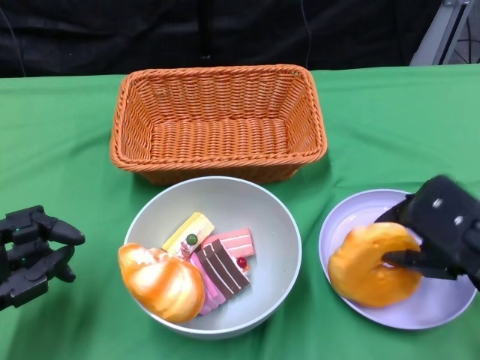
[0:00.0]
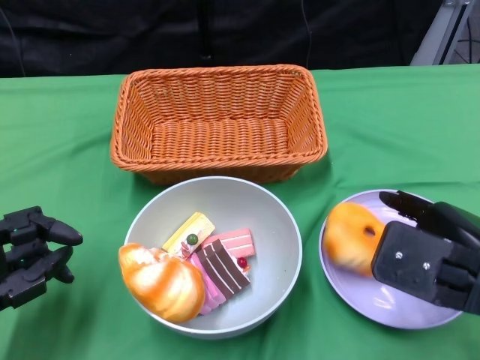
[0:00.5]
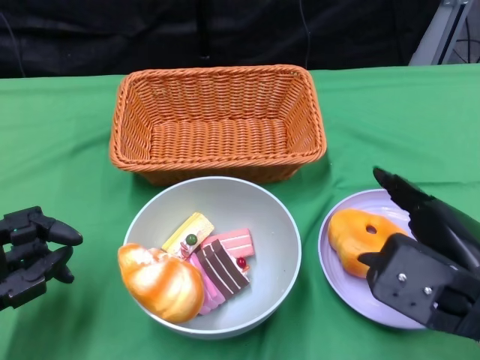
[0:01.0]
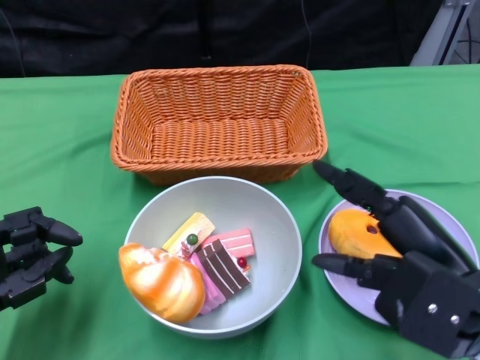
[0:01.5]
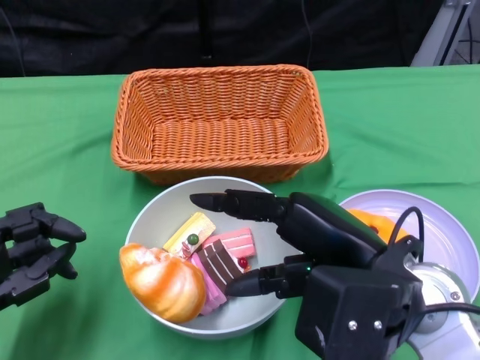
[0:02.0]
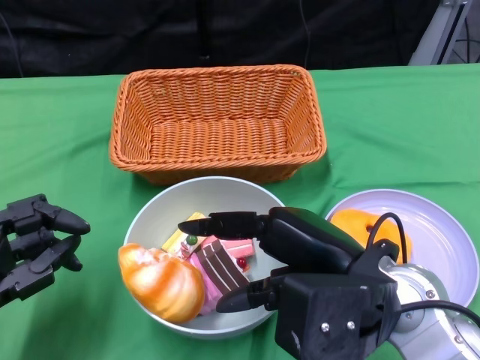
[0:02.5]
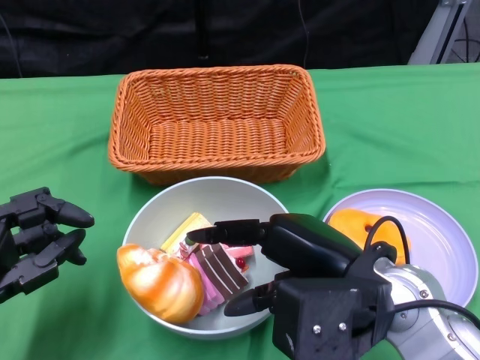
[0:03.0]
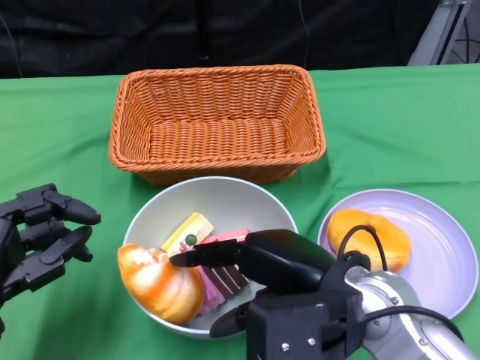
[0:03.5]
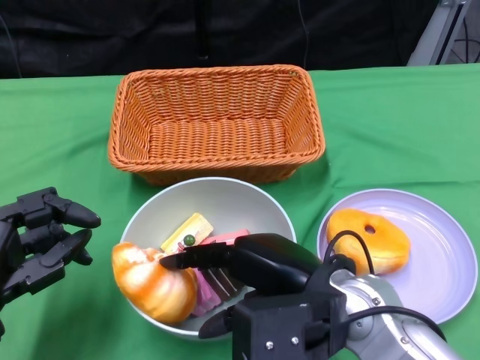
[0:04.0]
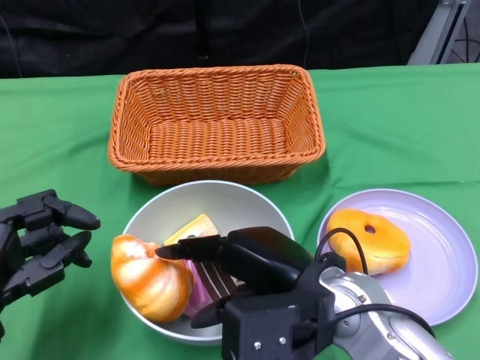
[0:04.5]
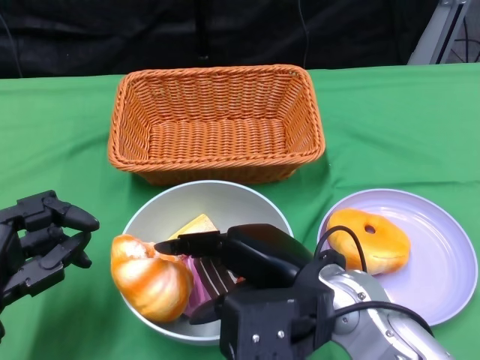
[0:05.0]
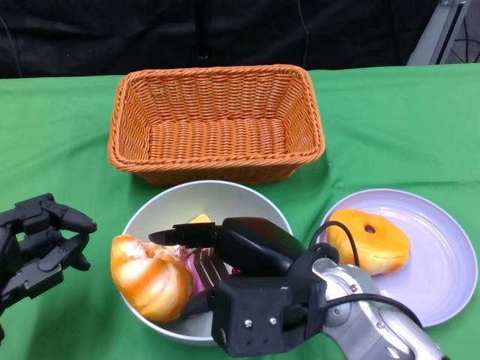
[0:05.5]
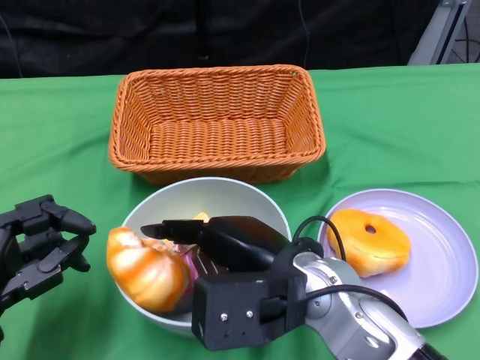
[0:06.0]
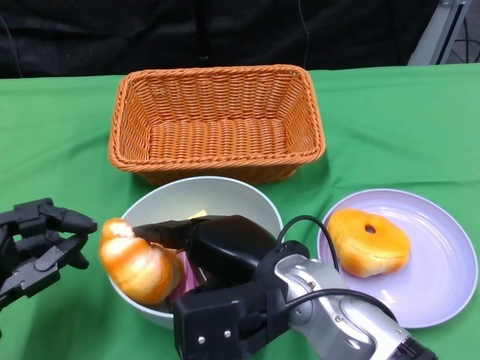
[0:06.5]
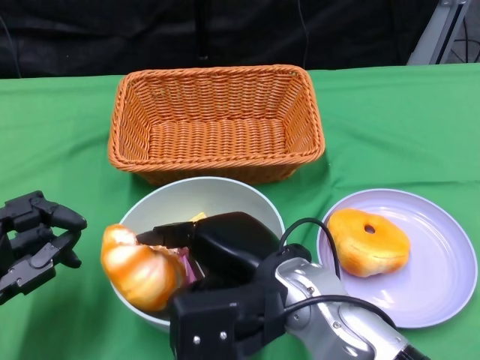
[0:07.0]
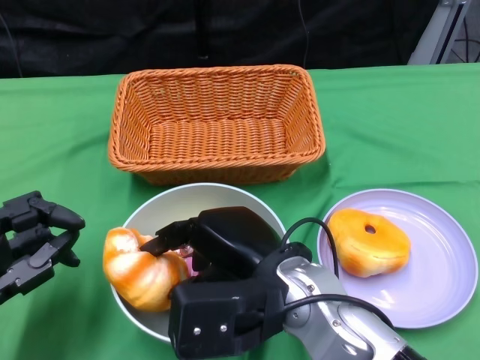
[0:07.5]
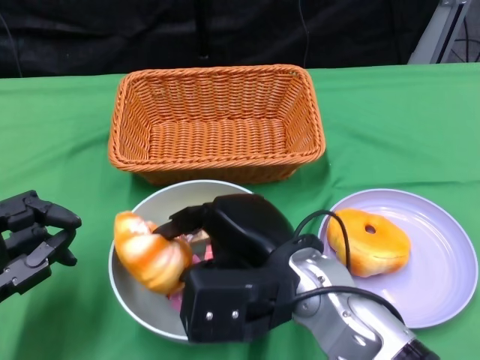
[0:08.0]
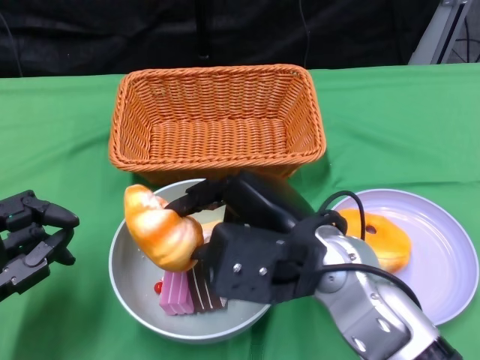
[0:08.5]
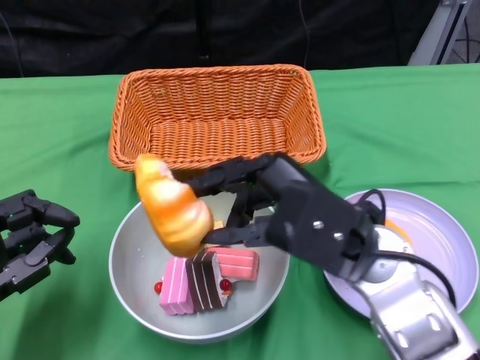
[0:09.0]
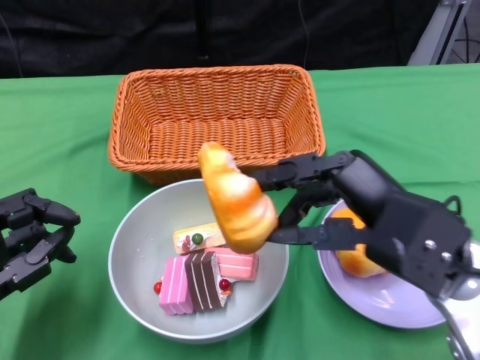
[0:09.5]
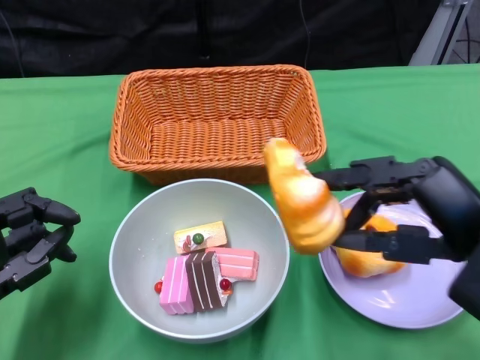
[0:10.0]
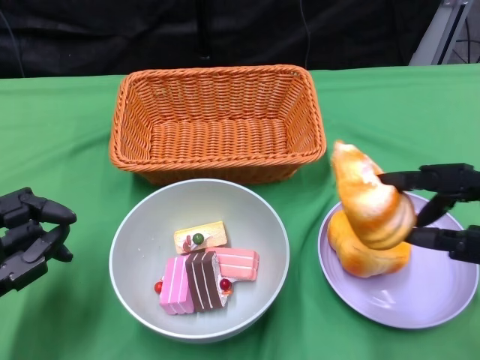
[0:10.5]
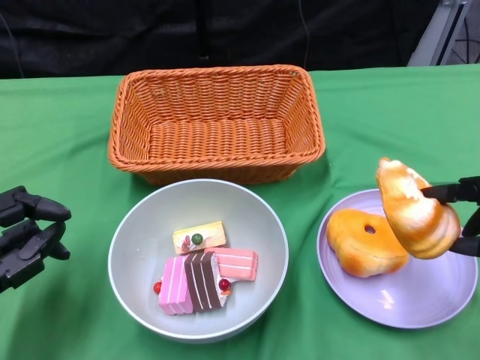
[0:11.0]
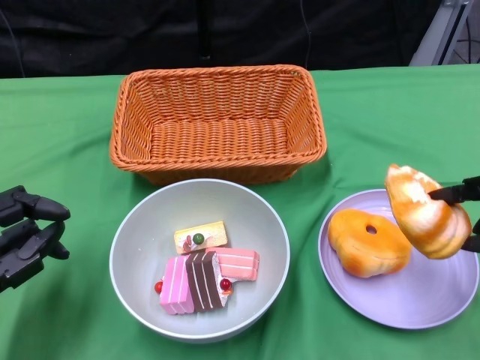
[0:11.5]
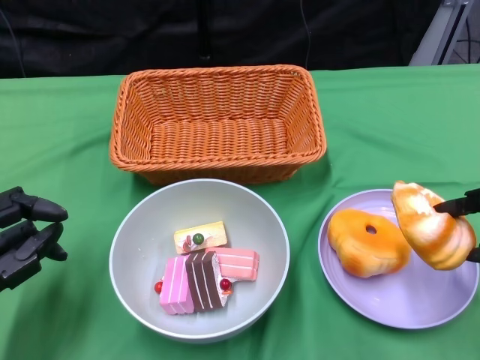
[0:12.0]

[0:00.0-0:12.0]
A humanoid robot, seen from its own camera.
0:00.0 to 0:02.0: The right hand moves to the left, approximately 10 cm.
0:02.0 to 0:04.0: The right hand moves approximately 5 cm.
0:04.0 to 0:08.0: The hands make only small movements.
0:08.0 to 0:10.0: The right hand goes some 15 cm to the right.
0:10.0 to 0:12.0: The right hand travels to the right by about 10 cm.

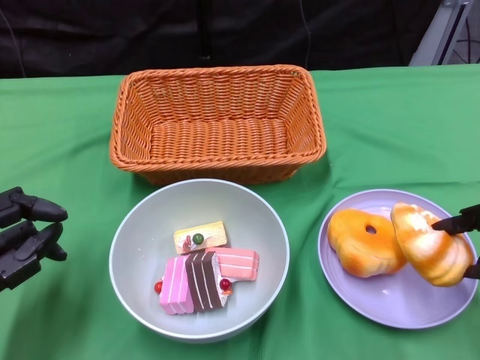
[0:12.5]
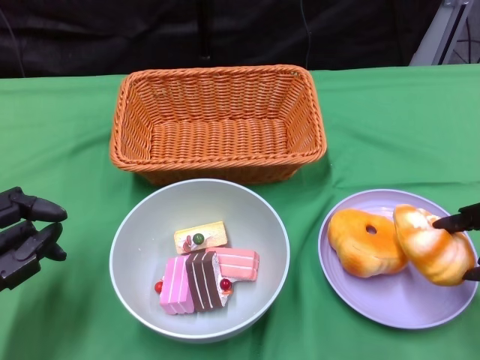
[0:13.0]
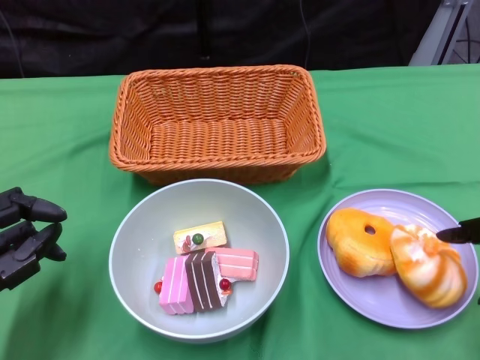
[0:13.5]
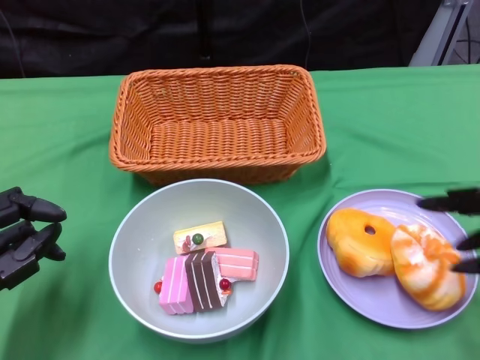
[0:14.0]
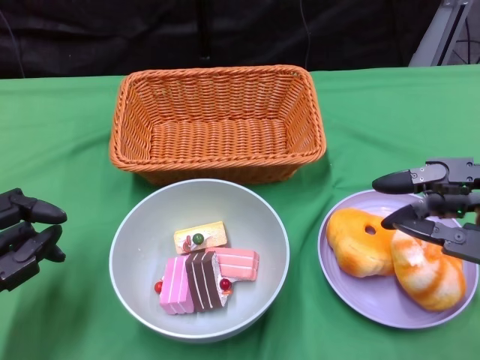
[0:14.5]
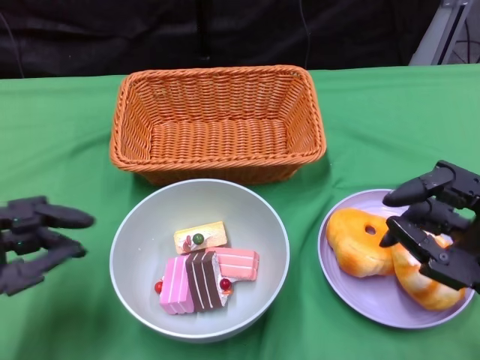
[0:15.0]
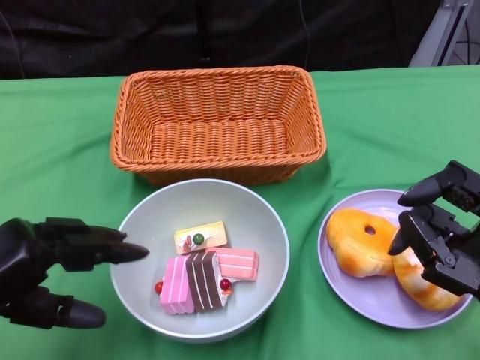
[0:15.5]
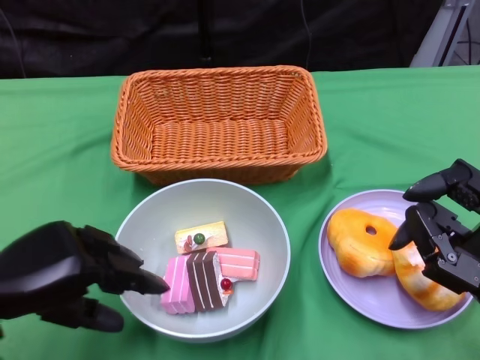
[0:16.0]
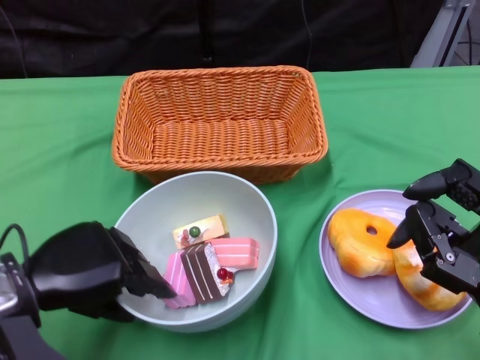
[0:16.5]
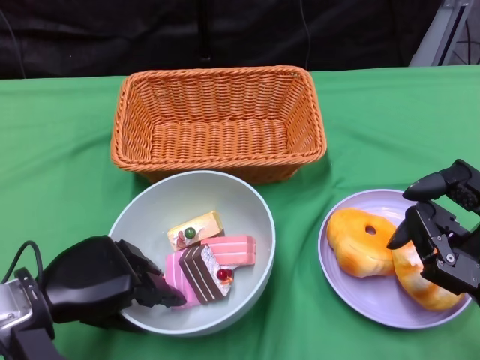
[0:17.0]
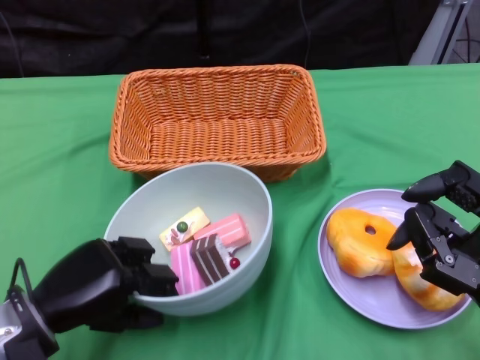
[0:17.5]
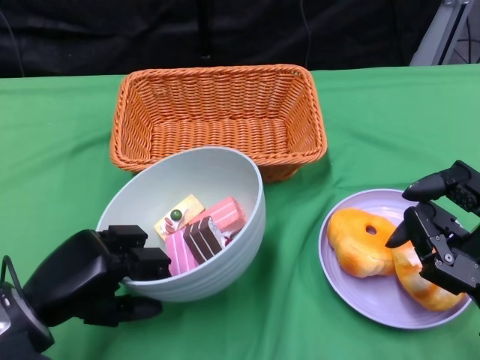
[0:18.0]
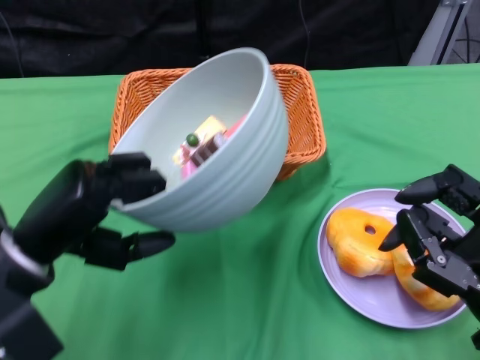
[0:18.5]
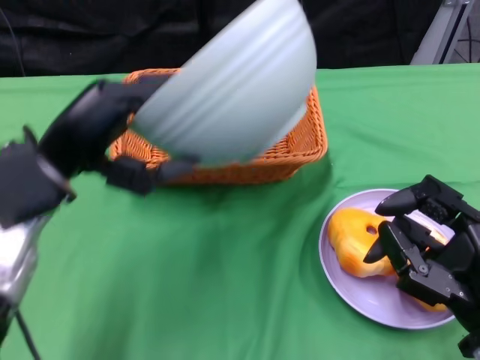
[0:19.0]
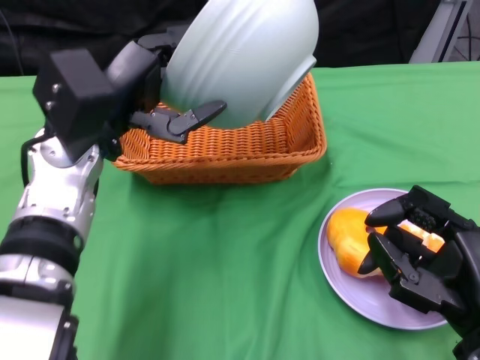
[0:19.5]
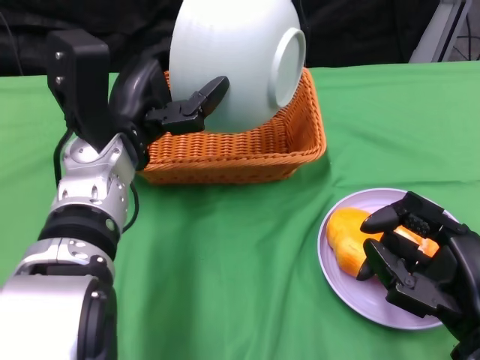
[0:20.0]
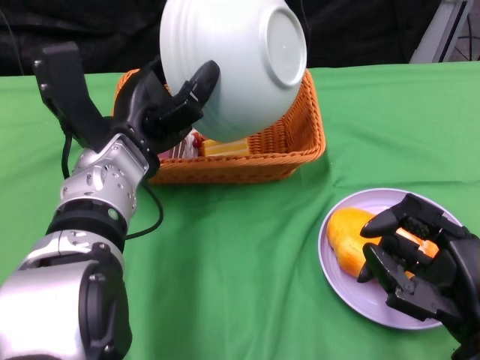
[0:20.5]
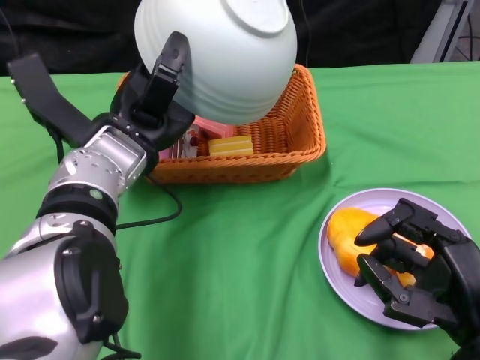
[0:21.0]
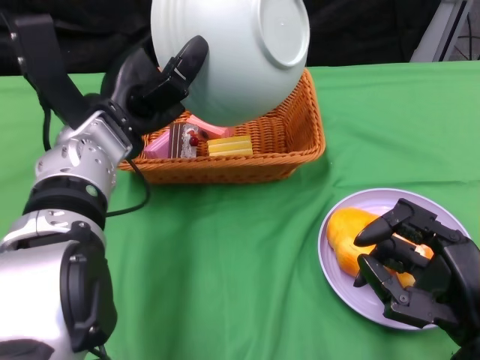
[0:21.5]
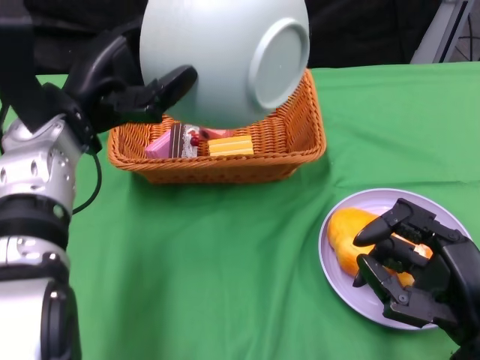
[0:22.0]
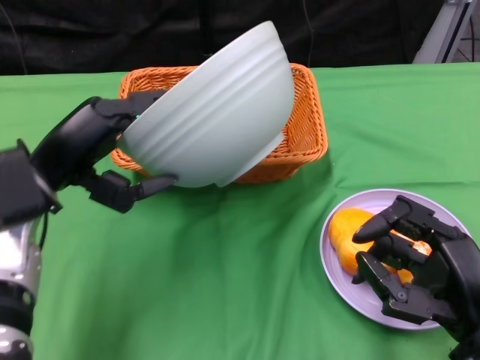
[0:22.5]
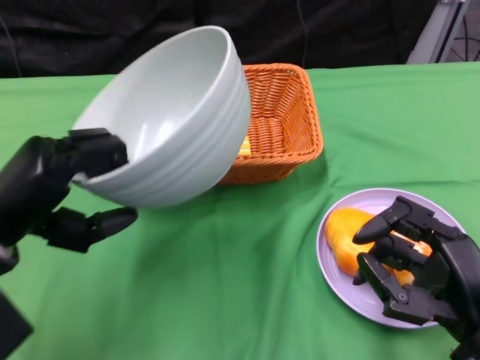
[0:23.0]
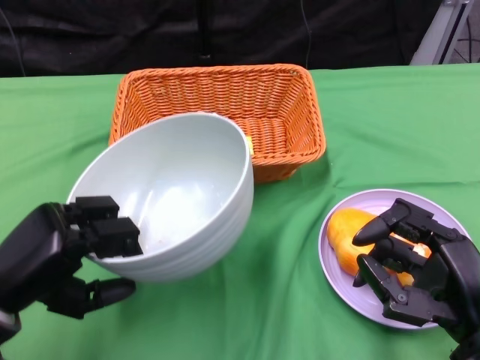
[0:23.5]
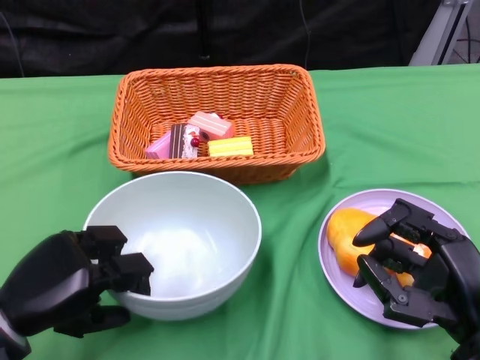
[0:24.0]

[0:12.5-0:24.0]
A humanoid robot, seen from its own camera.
Step, 0:14.5 to 0:17.5: Grasp the bowl with the left gripper.
Step, 0:18.0 to 0:20.5: Pour the cake into the basket with the left gripper.
0:12.5 to 0:14.5: The right hand moves approximately 5 cm.
0:14.5 to 0:16.5: The left hand changes place by about 5 cm.
0:18.5 to 0:20.0: The left hand heads forward and to the right, covering roughly 15 cm.
0:20.0 to 0:22.0: The left hand changes place by about 5 cm.
0:22.0 to 0:24.0: The left hand travels backward, downward and to the left by about 20 cm.

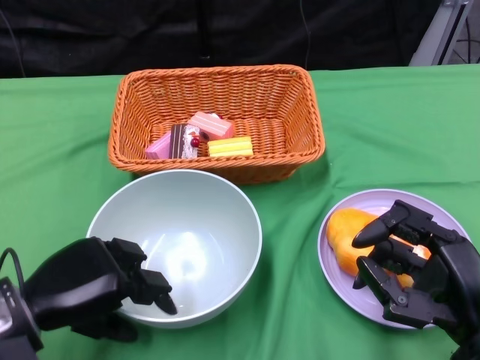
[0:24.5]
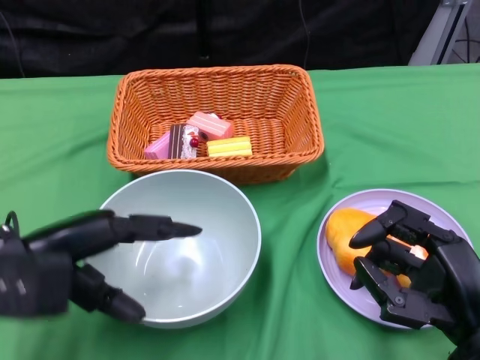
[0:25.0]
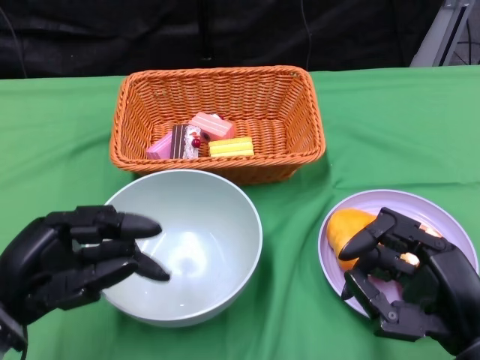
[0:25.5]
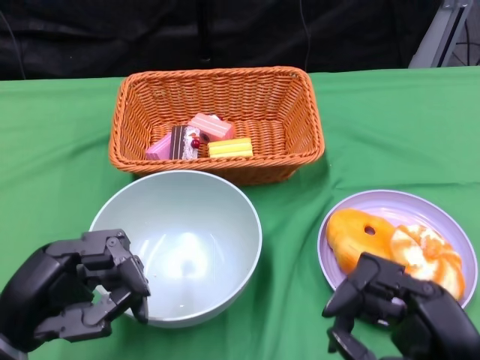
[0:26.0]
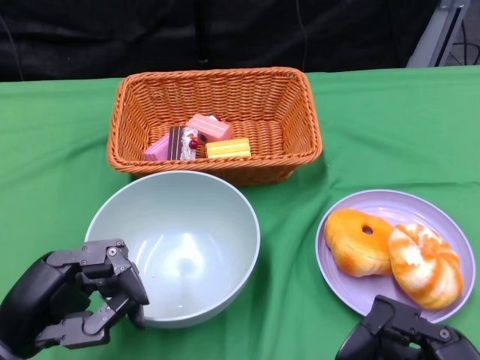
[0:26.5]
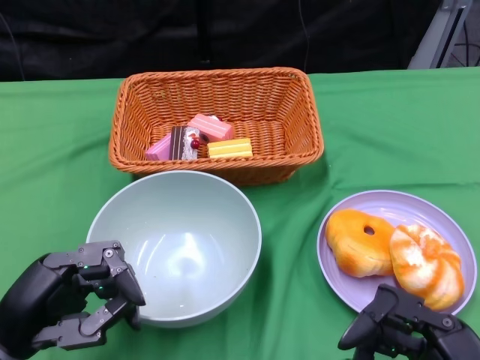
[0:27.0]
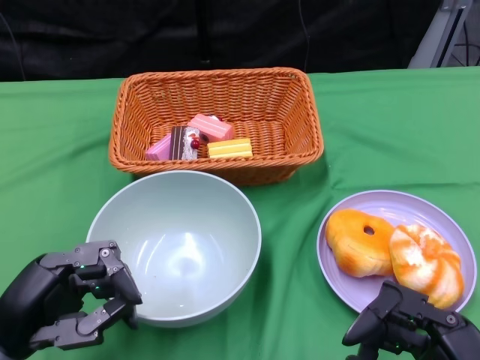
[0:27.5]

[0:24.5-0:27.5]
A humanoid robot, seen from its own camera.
0:24.5 to 0:26.0: The left hand ends up about 5 cm from where it was.
0:26.0 to 0:27.5: The hands make only small movements.
